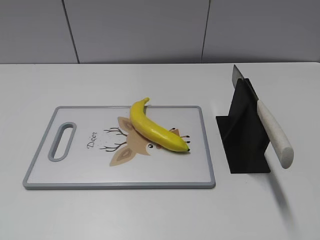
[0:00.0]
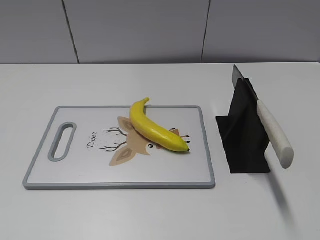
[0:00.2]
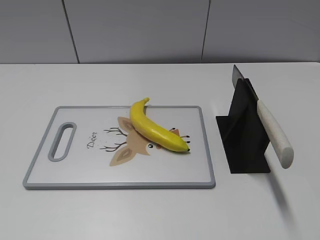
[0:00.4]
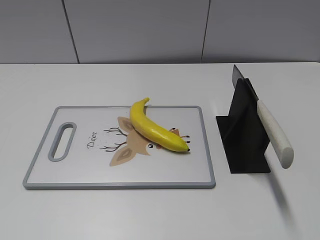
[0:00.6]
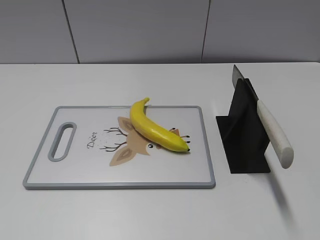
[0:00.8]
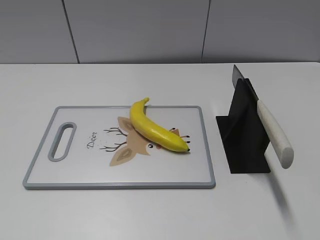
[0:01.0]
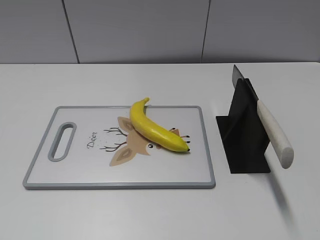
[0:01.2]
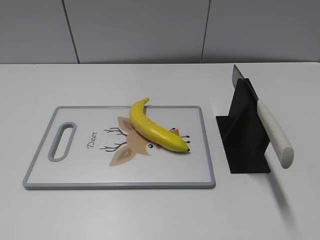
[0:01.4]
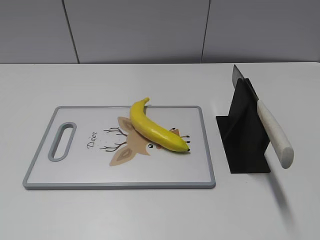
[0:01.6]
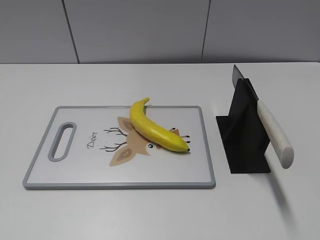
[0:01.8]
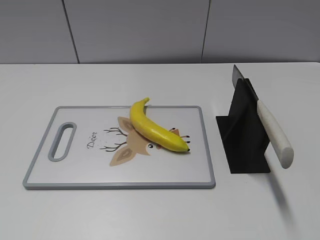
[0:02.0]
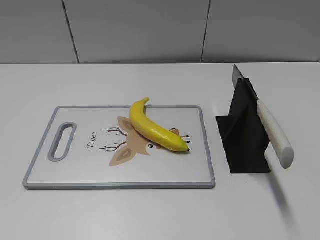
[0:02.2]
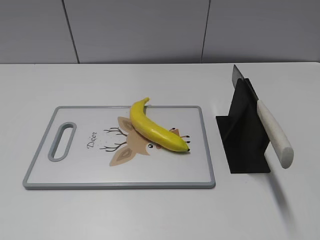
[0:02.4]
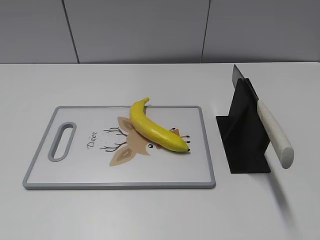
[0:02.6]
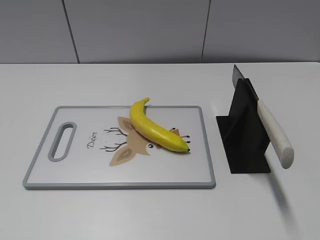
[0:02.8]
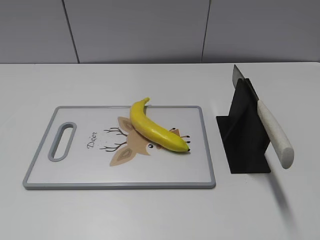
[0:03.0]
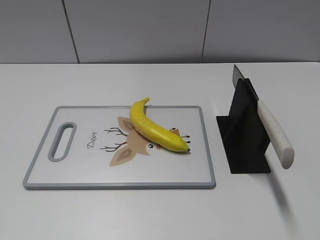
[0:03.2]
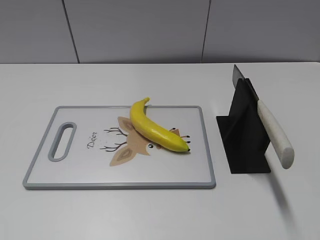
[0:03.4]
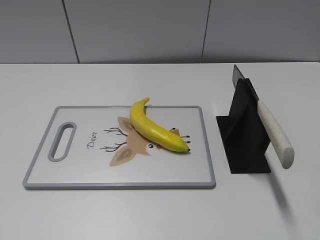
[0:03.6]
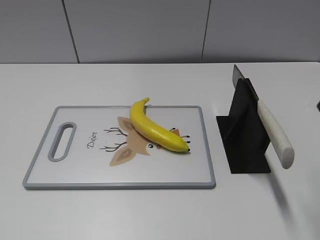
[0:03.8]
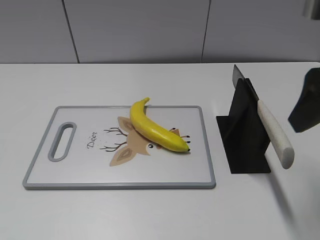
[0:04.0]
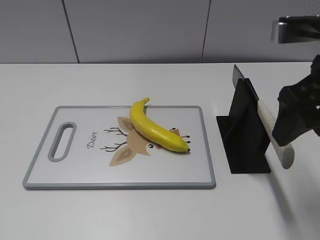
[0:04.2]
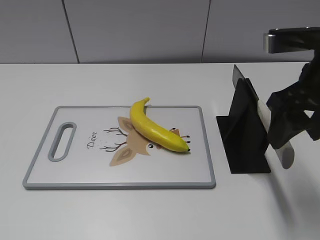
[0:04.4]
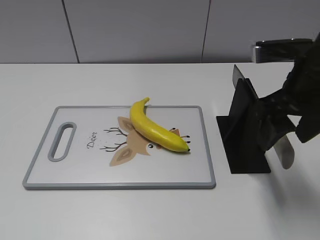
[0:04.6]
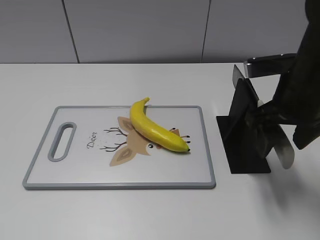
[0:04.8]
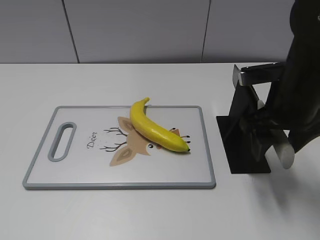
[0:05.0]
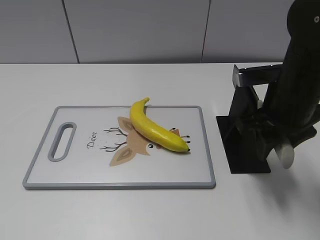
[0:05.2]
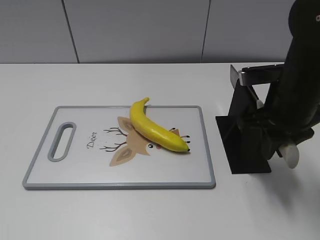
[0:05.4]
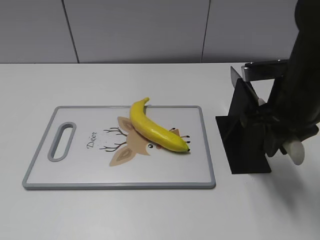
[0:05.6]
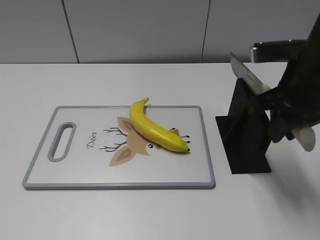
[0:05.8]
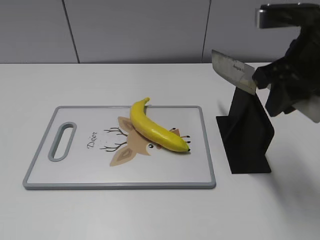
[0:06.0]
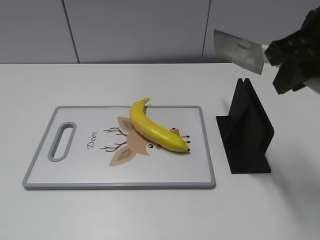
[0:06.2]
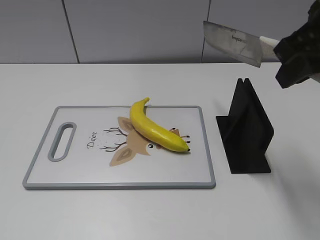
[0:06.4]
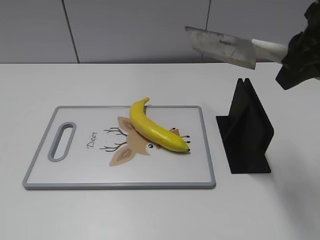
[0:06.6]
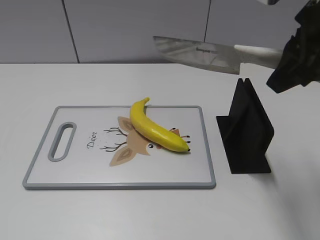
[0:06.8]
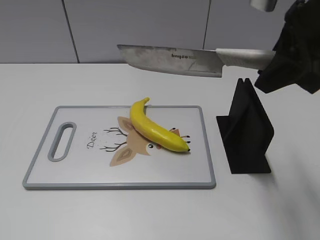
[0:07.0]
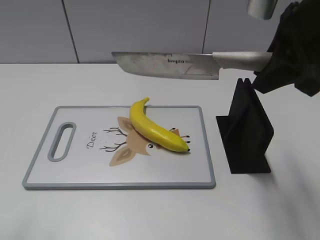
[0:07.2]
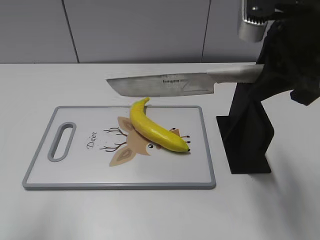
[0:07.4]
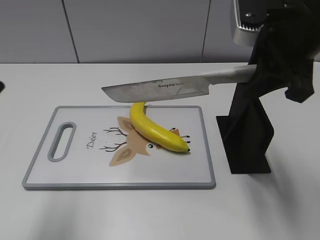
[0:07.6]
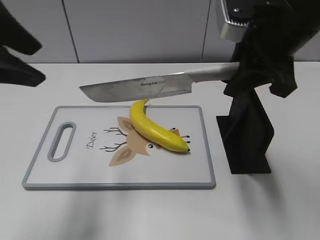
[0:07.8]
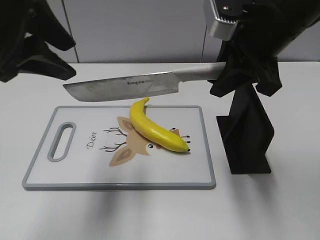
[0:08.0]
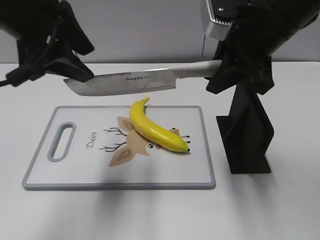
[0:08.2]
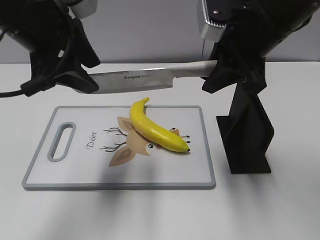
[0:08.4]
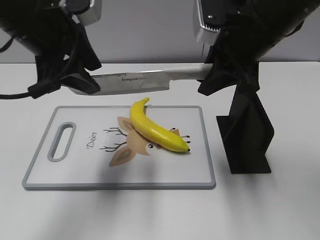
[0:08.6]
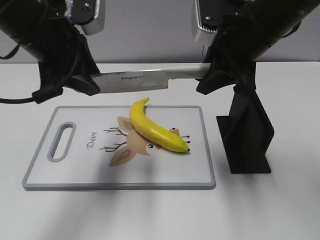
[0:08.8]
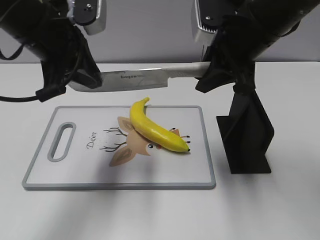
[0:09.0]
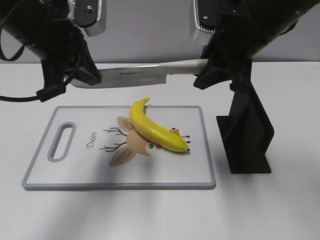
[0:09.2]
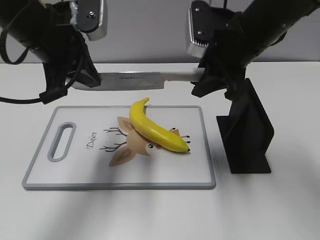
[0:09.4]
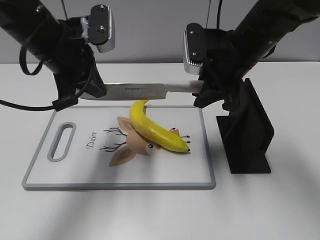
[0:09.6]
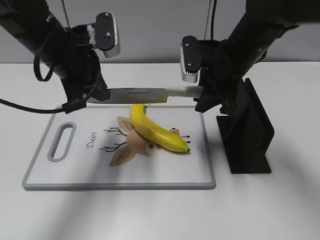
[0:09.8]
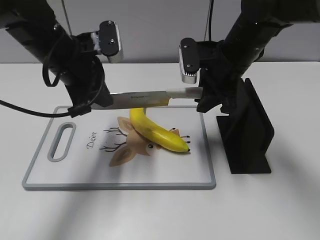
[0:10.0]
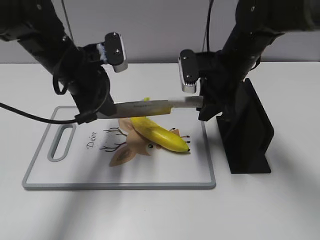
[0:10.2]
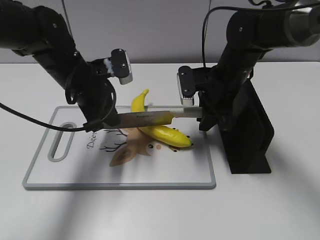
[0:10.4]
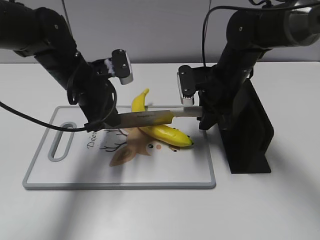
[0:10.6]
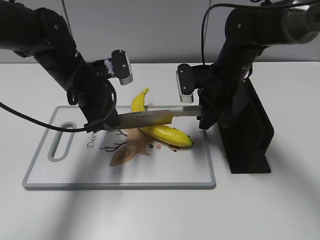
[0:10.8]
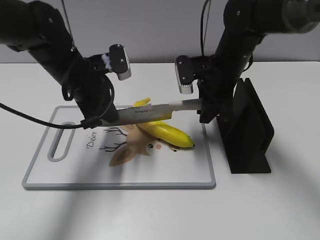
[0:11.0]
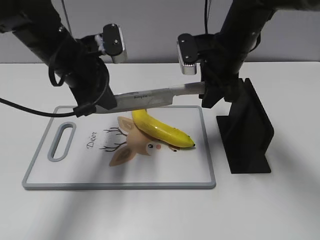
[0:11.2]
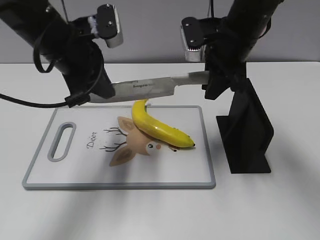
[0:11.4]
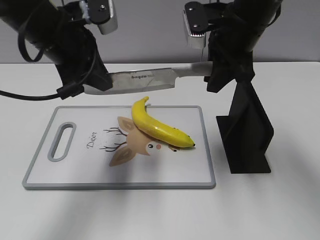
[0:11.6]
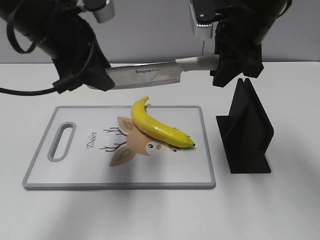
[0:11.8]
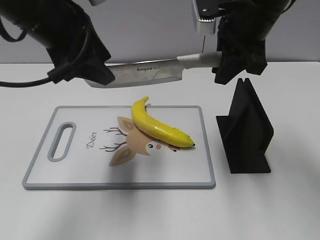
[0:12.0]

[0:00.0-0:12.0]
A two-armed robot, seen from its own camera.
Task of the whole recording: cut plastic banana.
Step, 0:00.0 to 0:06.6: Grab the knife handle with your right hand.
Step, 0:06.8 to 0:11.6: Lift the knife with your right hand.
0:03.0 to 0:04.4: The right gripper is displaced forward, to the left and downward by about 20 cm.
0:04.4 to 0:06.0: The right gripper travels downward and back again, approximately 5 cm each way, and closes.
0:06.0 to 0:07.6: The left gripper is displaced forward, upward and to the right by about 20 cm.
0:07.6 to 0:09.0: The right gripper ends up approximately 5 cm from where it was. The left gripper travels forward, to the right and downward by approximately 20 cm, and closes up.
0:09.0 to 0:10.4: The left gripper moves downward, approximately 10 cm; the right gripper moves downward and forward, approximately 15 cm.
0:10.4 to 0:12.0: Both grippers travel together upward, some 15 cm. The left gripper opens.

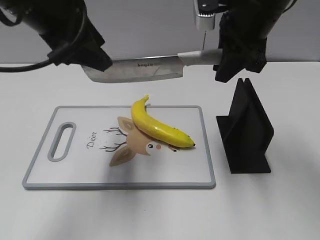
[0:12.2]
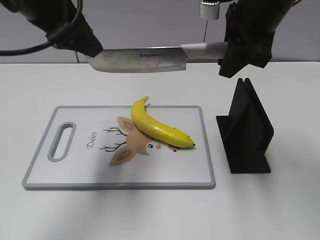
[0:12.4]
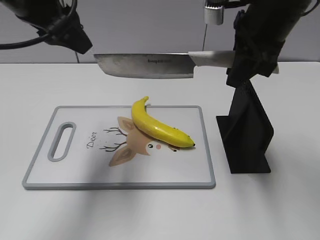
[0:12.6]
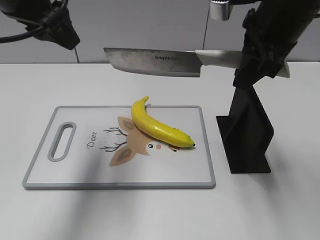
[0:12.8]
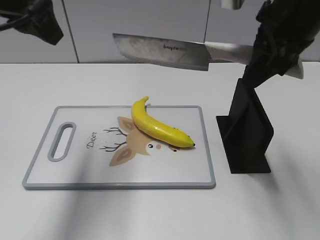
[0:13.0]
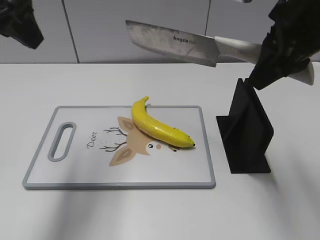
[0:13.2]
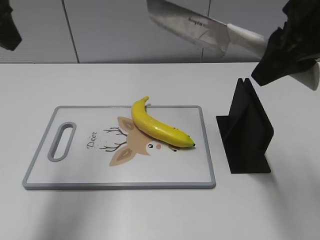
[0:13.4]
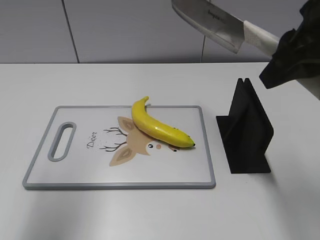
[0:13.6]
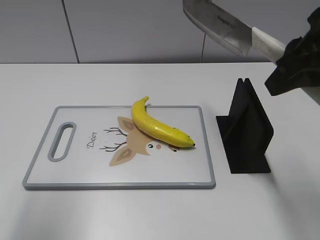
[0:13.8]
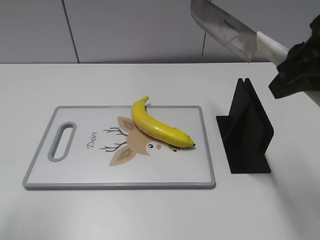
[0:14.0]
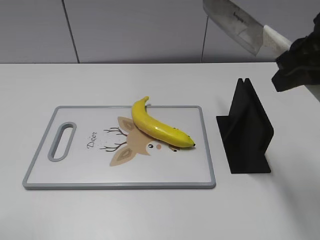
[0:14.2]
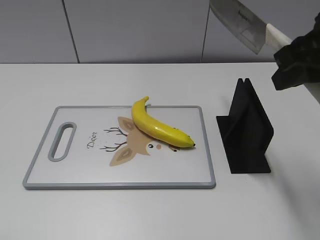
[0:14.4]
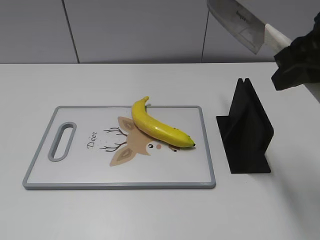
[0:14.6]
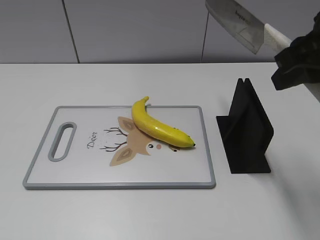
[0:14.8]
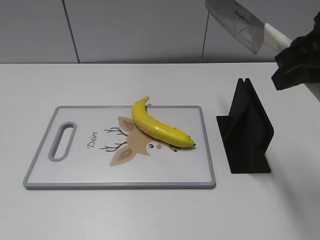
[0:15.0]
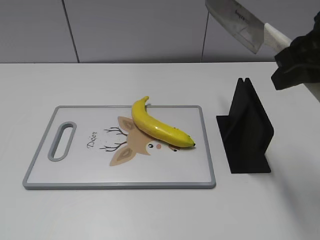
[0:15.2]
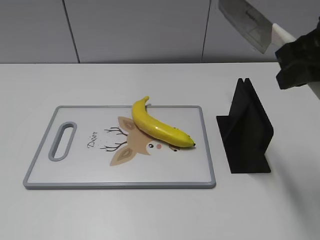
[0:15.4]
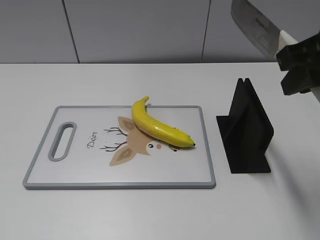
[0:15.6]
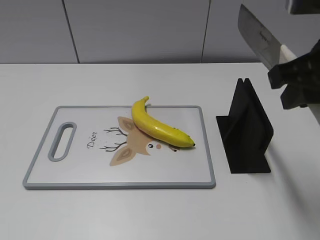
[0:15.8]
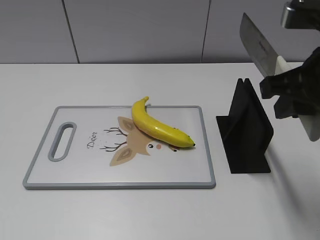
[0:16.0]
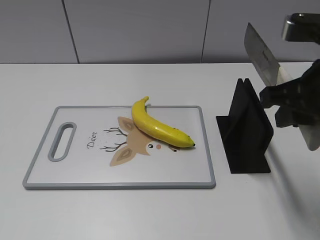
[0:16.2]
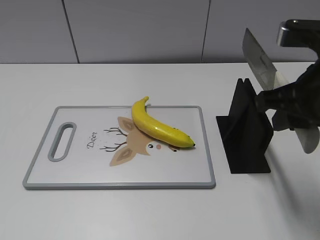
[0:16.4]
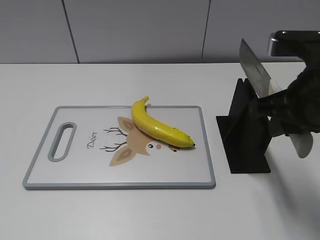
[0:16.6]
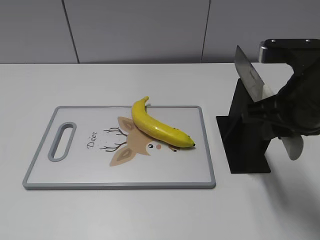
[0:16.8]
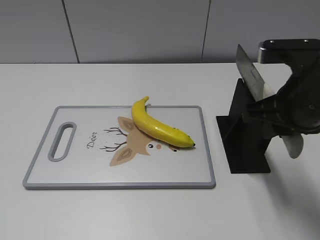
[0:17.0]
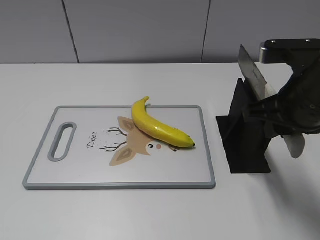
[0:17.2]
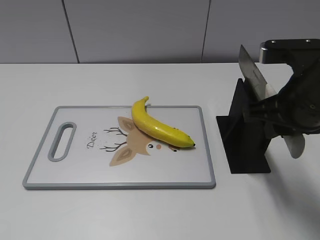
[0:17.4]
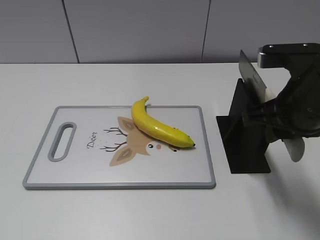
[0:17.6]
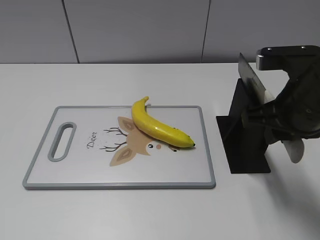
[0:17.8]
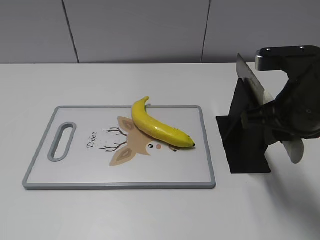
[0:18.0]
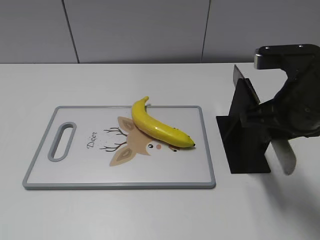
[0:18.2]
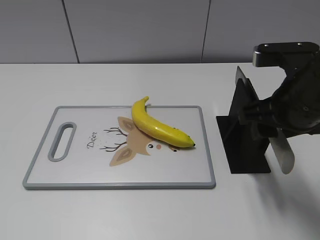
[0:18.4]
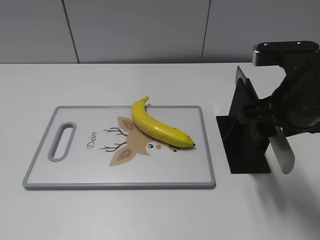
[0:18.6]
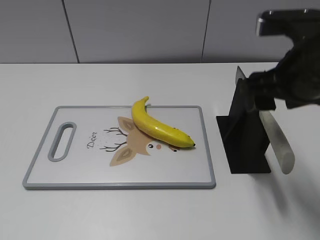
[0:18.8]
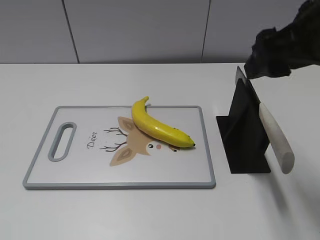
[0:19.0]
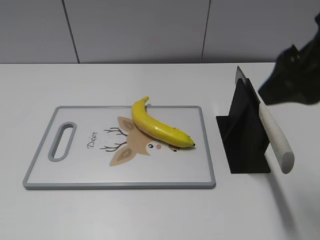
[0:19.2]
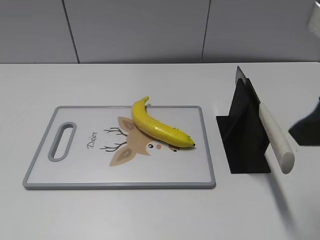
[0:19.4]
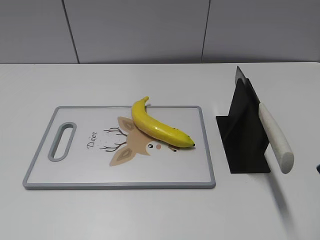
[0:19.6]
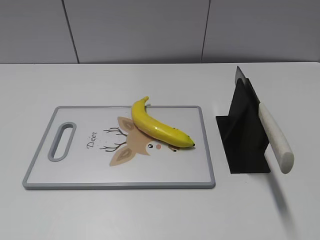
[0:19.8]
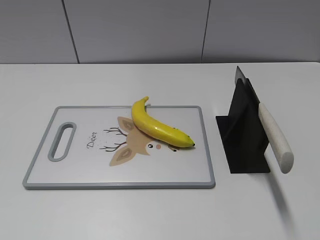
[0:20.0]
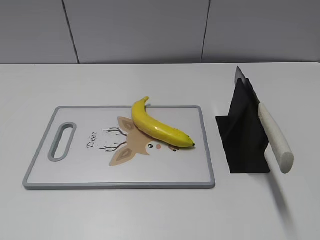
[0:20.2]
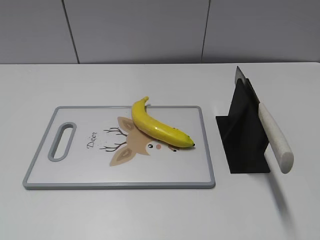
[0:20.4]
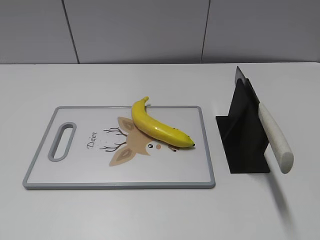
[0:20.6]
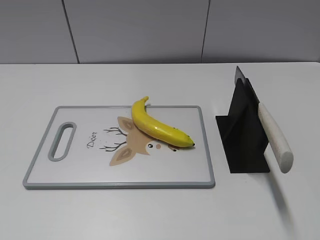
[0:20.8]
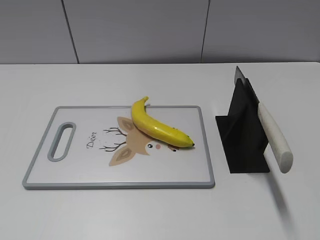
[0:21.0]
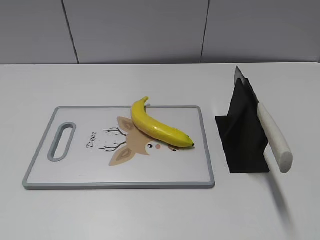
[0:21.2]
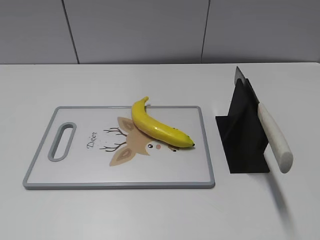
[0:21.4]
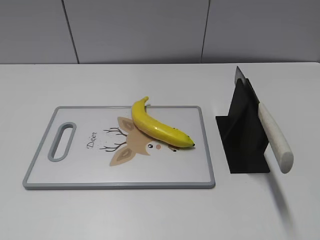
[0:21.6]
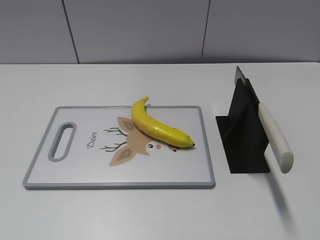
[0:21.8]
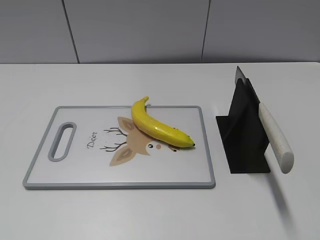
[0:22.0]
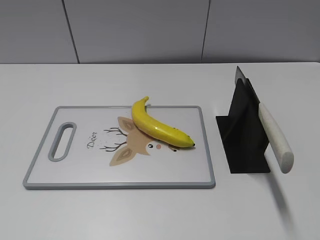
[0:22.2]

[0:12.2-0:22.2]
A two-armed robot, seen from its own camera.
Task of the whole recording: cut plastic banana.
Step, 0:12.2 to 0:13.4: Cut the banana with your right hand.
Step, 0:14.6 to 0:22.2: Place the knife on the storage rack with your right hand.
0:12.2 to 0:13.6: The right gripper shifts roughly 15 cm backward and to the right. The left gripper is displaced to the left and backward by approximately 10 cm.
0:13.6 to 0:15.0: The left gripper goes about 25 cm backward and downward.
0:15.0 to 0:16.4: The right gripper is displaced downward by some 5 cm.
0:16.4 to 0:18.0: There are only small adjustments of the grippers.
0:18.0 to 0:19.4: The right gripper travels upward and backward by some 10 cm, and opens up.
0:19.4 to 0:20.8: The right gripper moves backward and to the right, about 20 cm.
